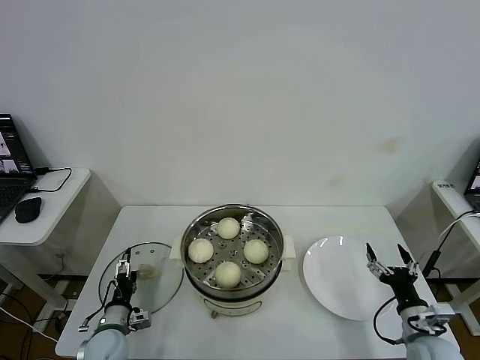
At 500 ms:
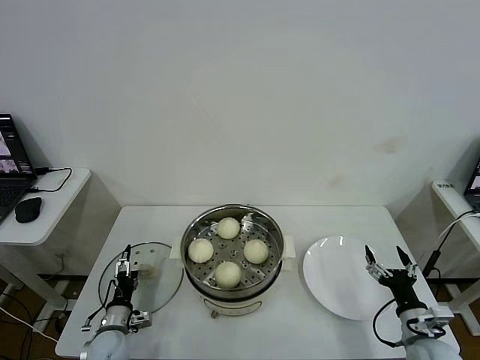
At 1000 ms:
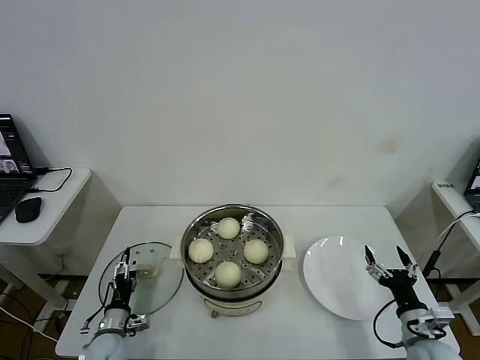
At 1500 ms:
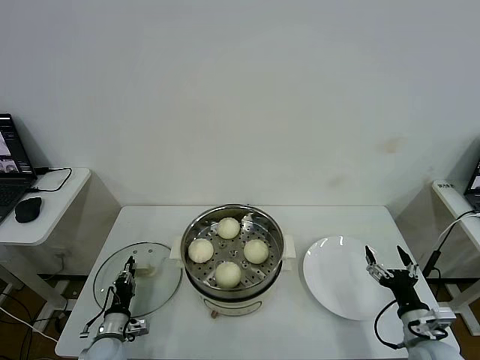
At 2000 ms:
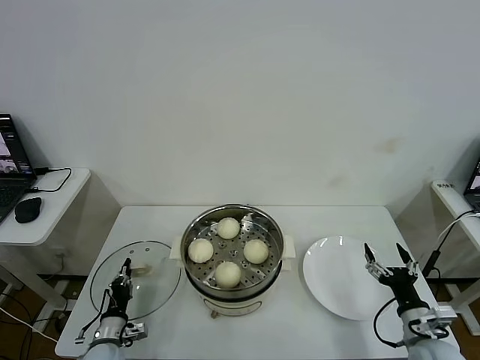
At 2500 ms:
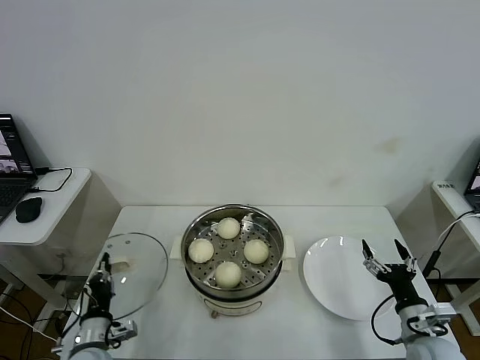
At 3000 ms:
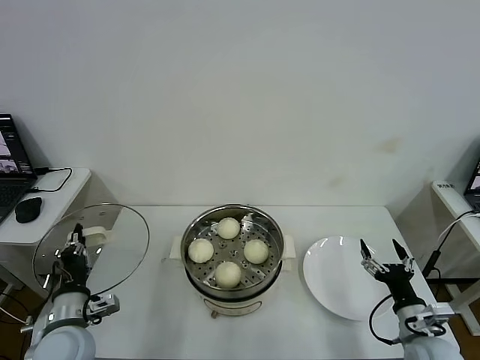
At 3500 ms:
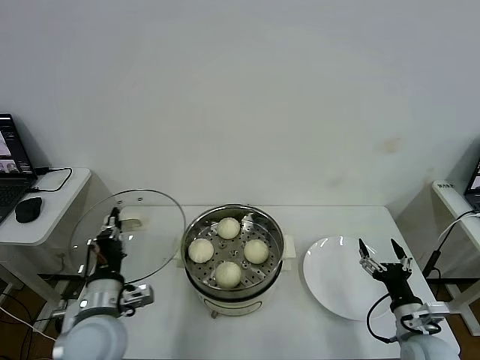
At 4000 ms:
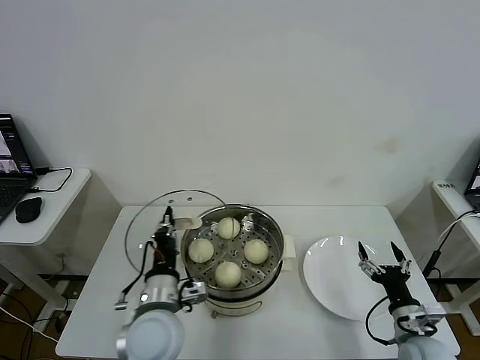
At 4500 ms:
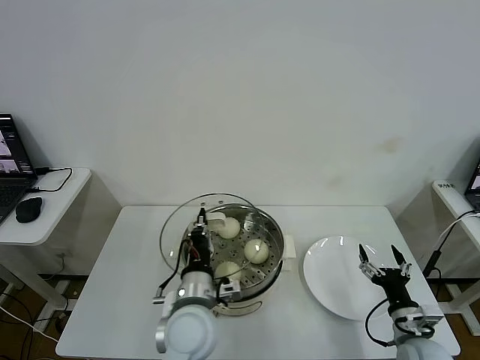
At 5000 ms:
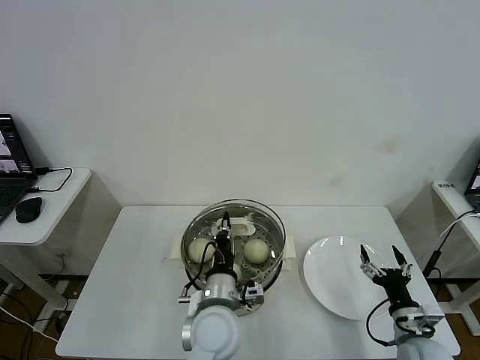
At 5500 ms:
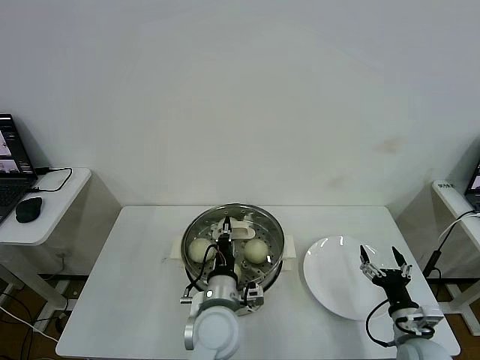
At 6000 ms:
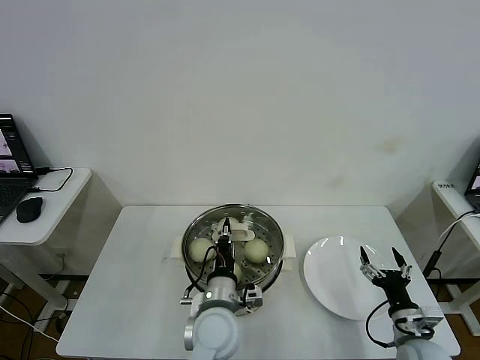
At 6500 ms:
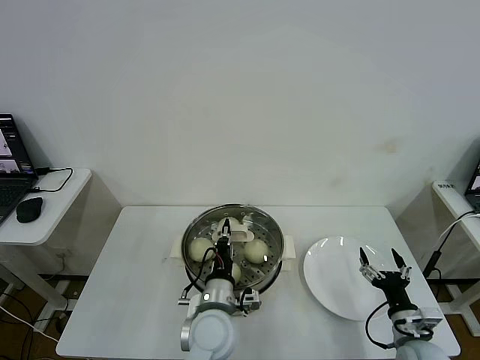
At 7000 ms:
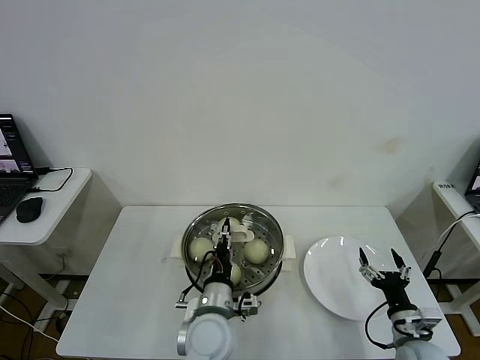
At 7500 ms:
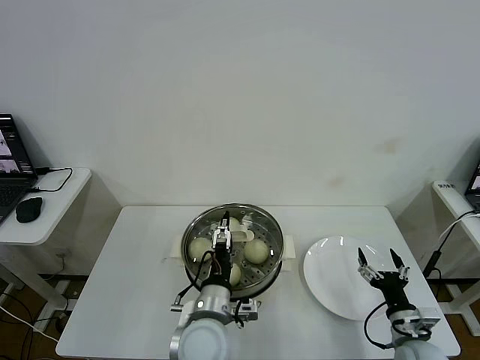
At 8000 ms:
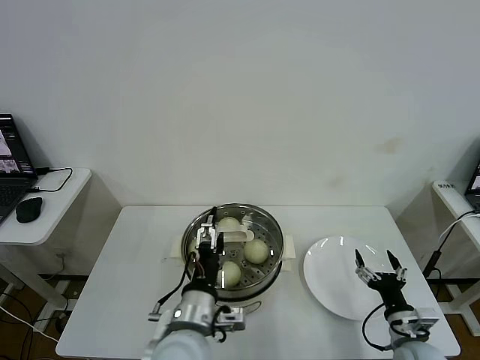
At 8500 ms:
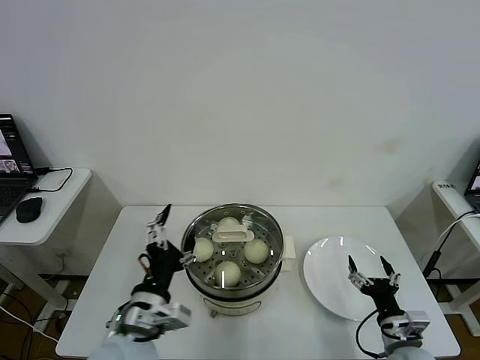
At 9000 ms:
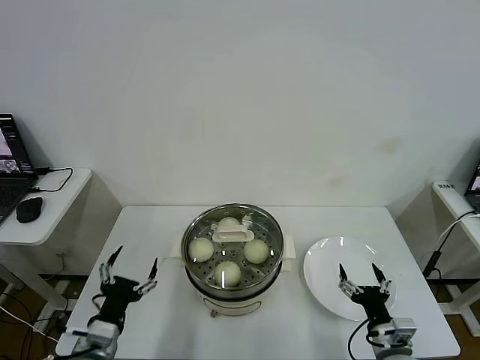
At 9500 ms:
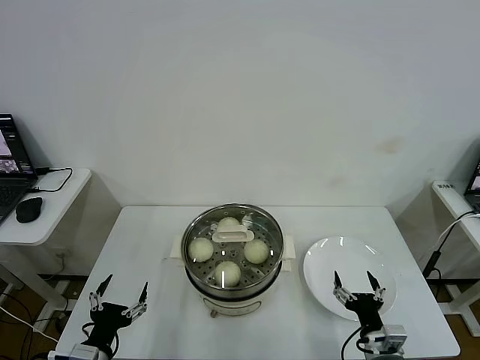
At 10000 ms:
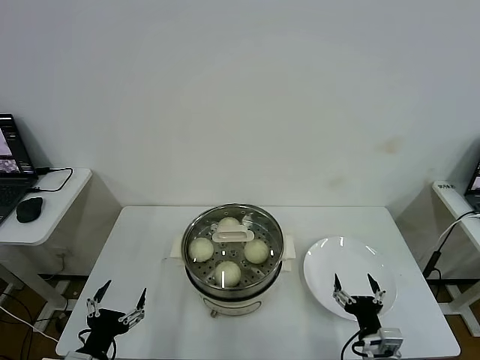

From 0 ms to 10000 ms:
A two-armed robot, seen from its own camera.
Step, from 2000 ms to 7000 ms: Place the pot lid on the steamer with left gripper.
From 0 ms to 2000 ms: The left gripper closes.
From 2000 ms to 4000 ms: The left gripper shifts approximately 25 cm upward and to the right.
From 4000 ms to 6000 ms: The left gripper heads to the right, covering roughly 10 cm.
From 6000 ms to 8000 ms: The left gripper moves upward and backward, about 10 cm, and opens.
From 8000 ms to 10000 ms: The right gripper travels to the left by approximately 5 cm. Meanwhile the left gripper shifts about 25 cm to the left.
